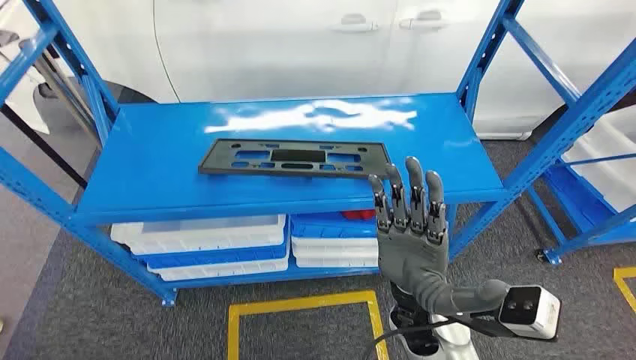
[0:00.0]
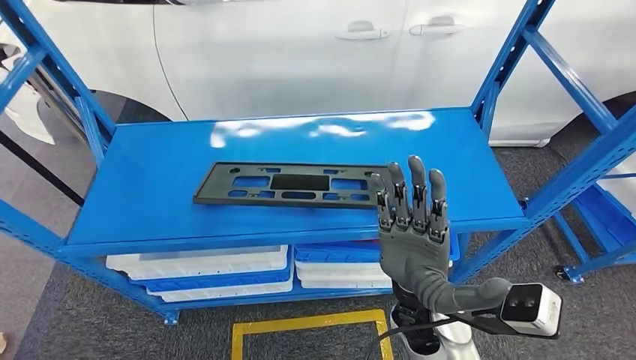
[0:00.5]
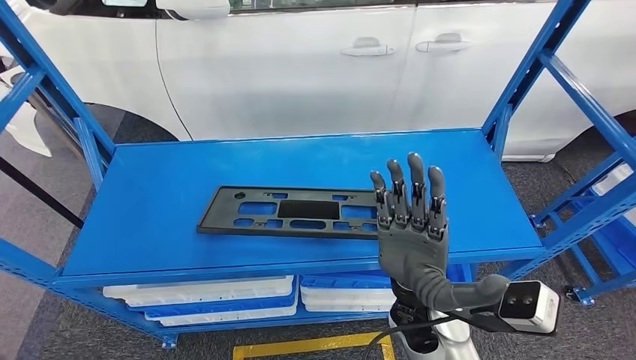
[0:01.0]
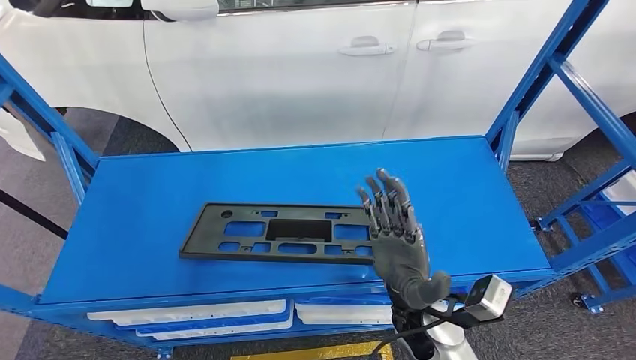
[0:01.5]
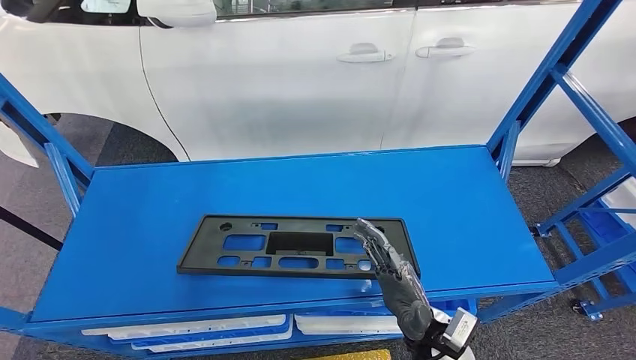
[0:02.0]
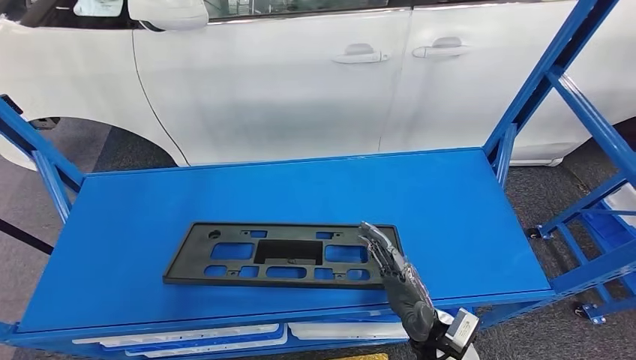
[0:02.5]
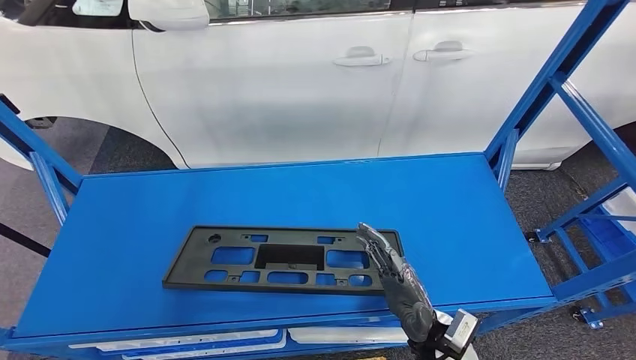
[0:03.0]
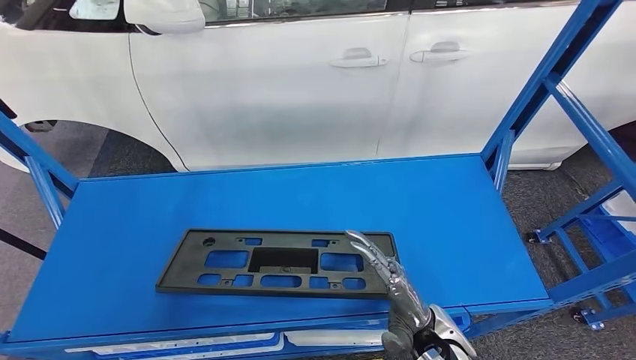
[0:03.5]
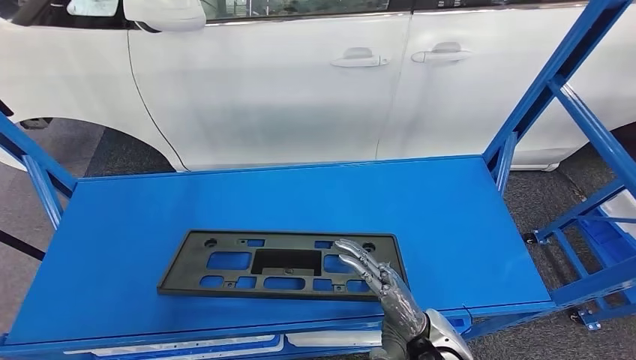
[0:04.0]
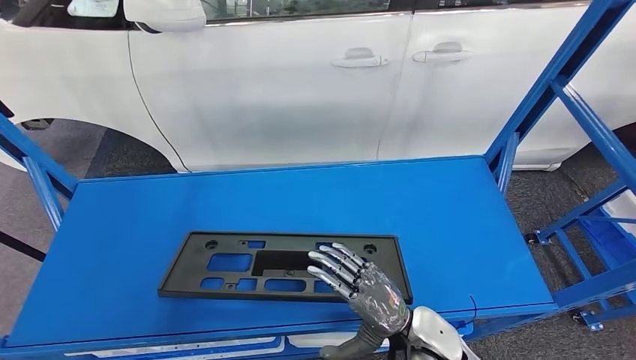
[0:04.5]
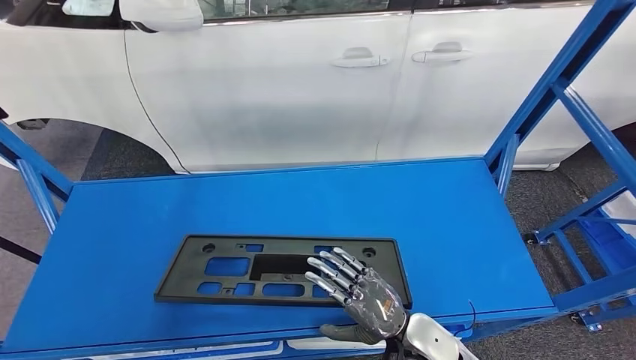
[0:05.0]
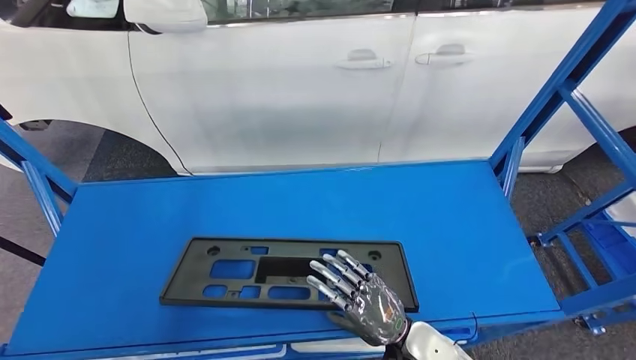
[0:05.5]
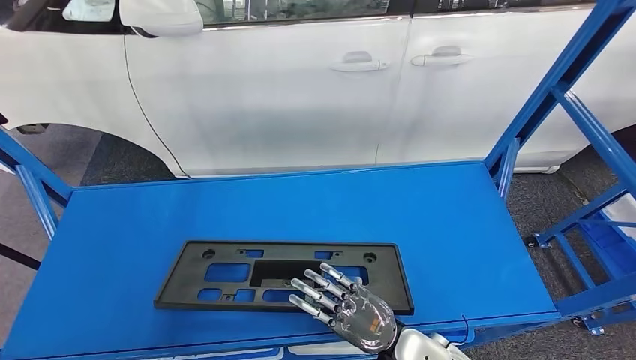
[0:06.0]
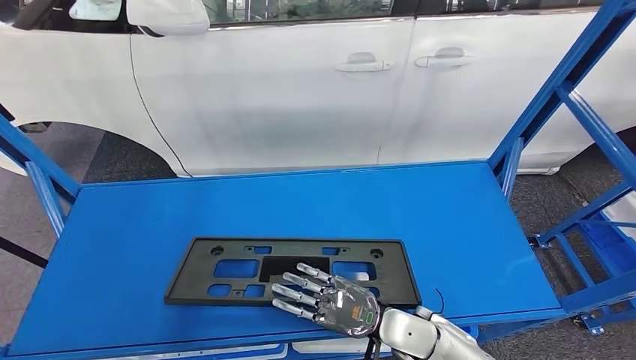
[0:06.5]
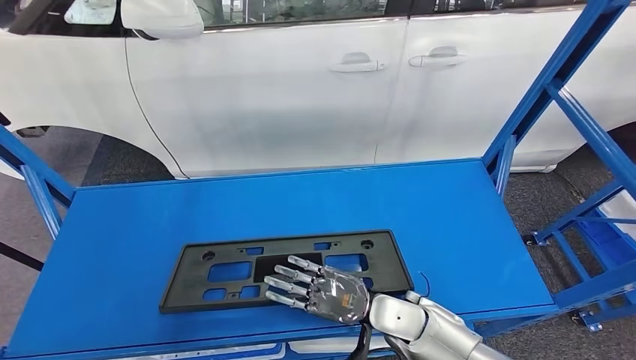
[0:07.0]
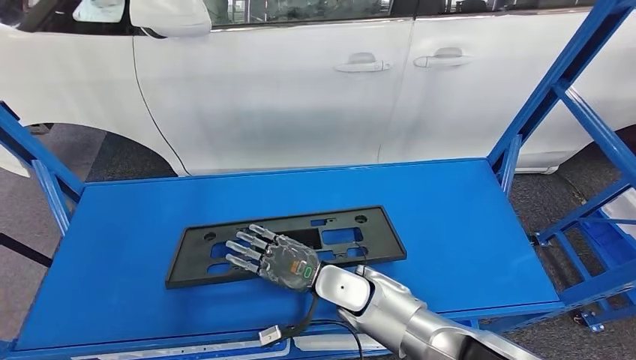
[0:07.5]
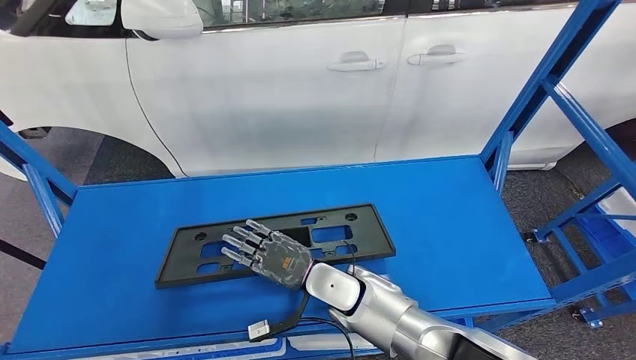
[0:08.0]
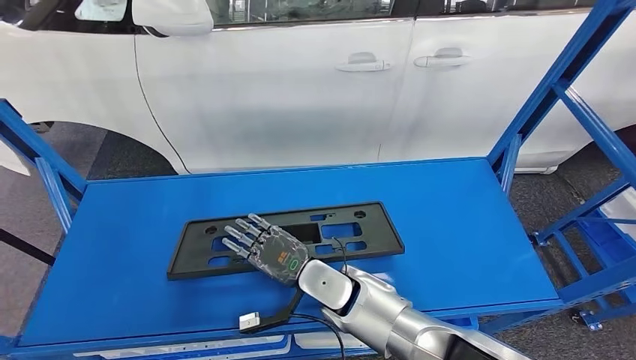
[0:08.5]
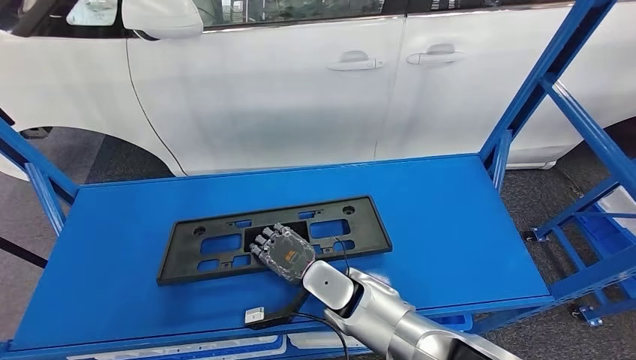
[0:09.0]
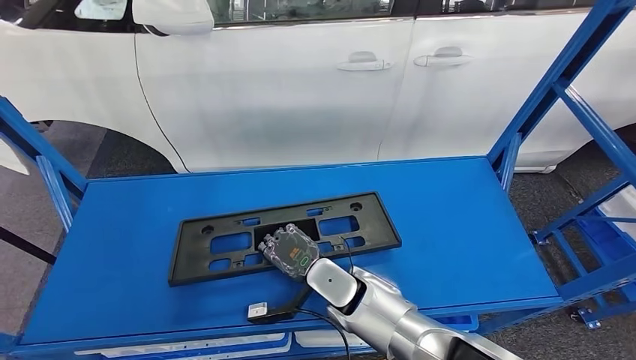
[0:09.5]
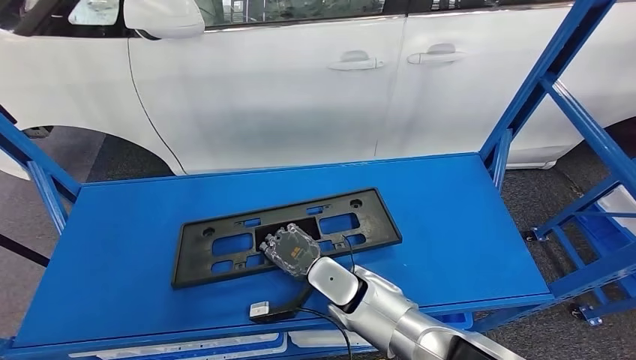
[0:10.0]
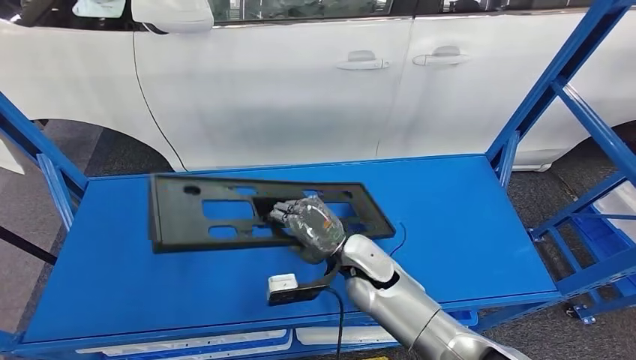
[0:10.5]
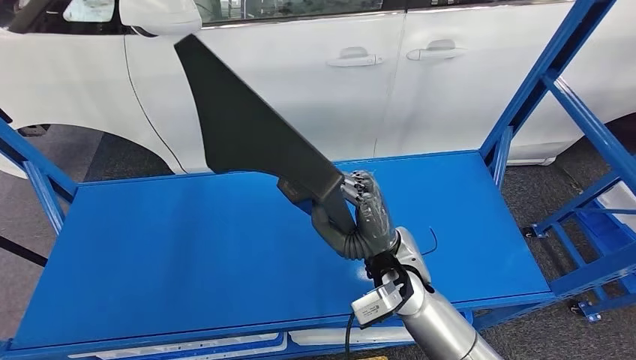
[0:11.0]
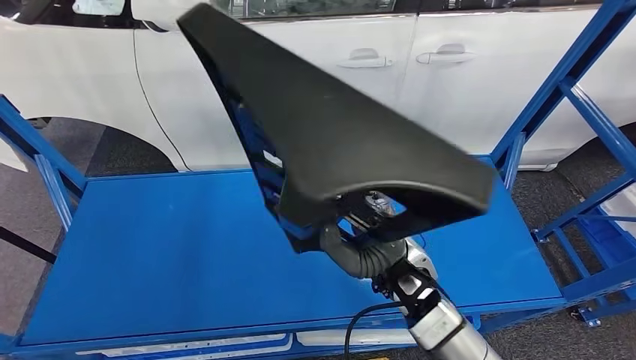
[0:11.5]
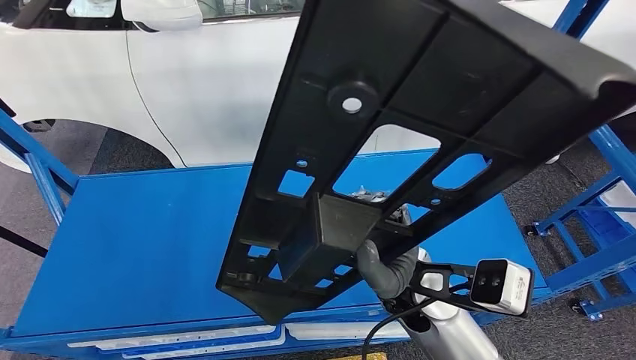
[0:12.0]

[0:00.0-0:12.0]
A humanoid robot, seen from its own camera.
0:08.0 to 0:10.0: There are only small adjustments of the hands.

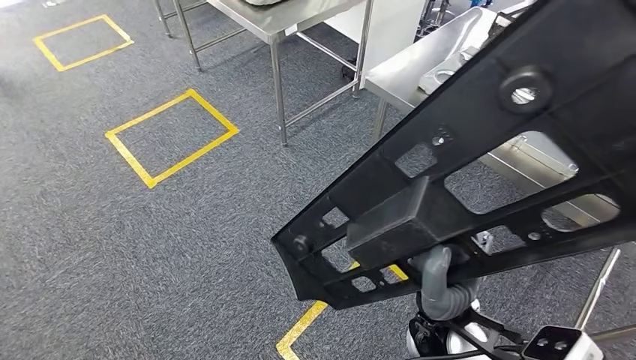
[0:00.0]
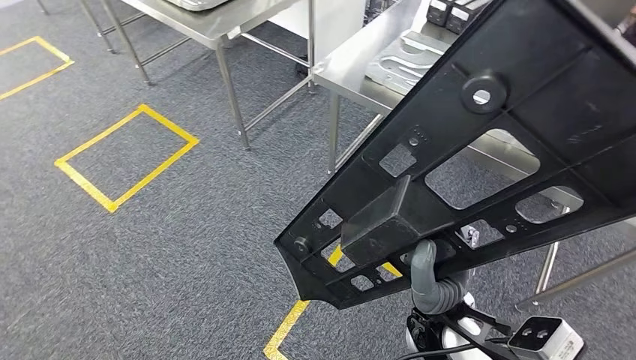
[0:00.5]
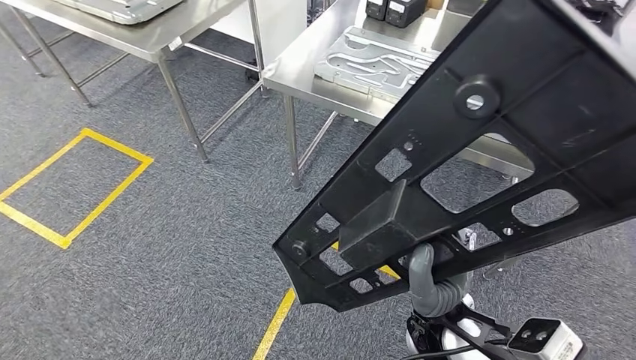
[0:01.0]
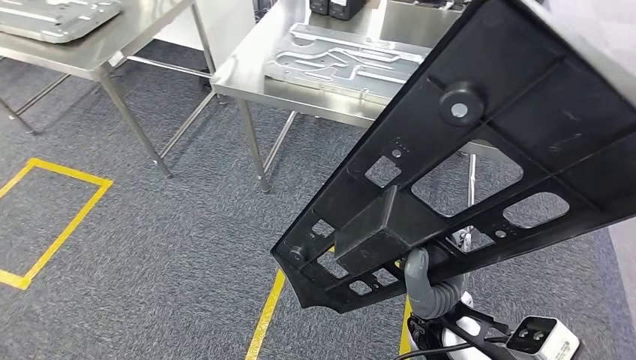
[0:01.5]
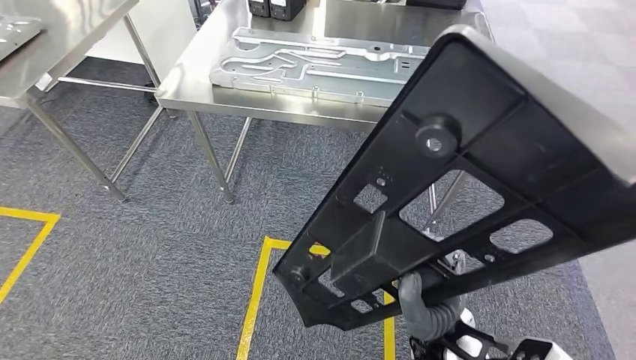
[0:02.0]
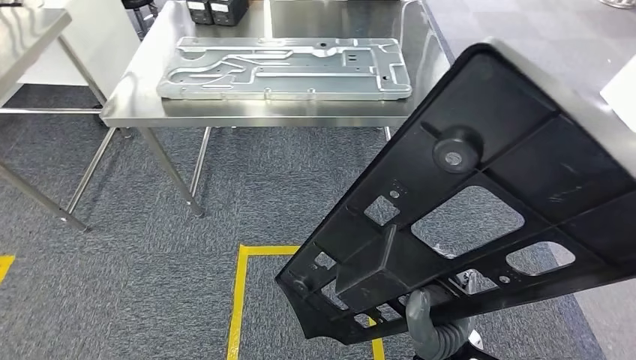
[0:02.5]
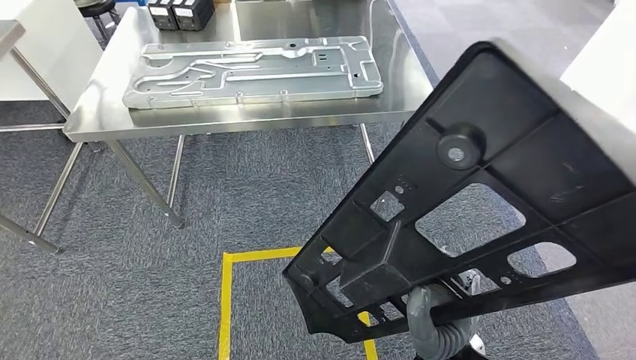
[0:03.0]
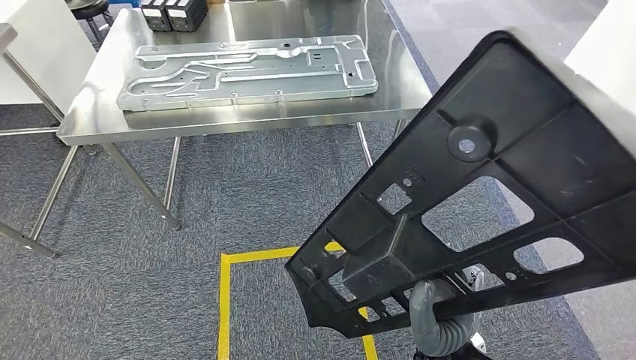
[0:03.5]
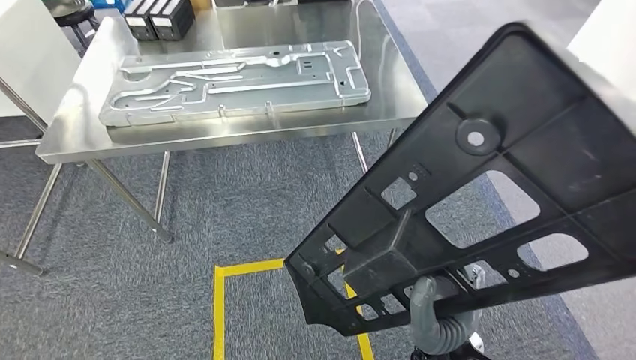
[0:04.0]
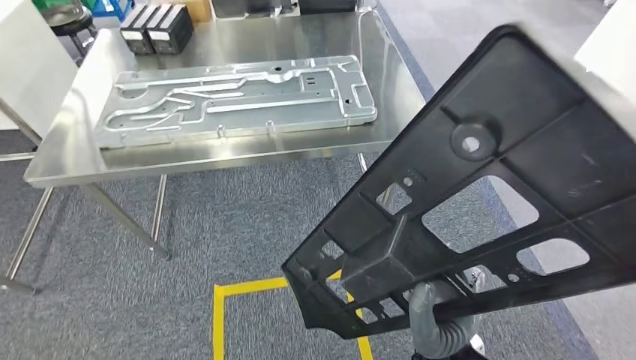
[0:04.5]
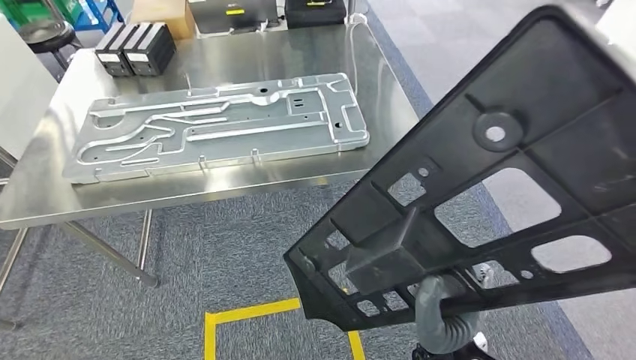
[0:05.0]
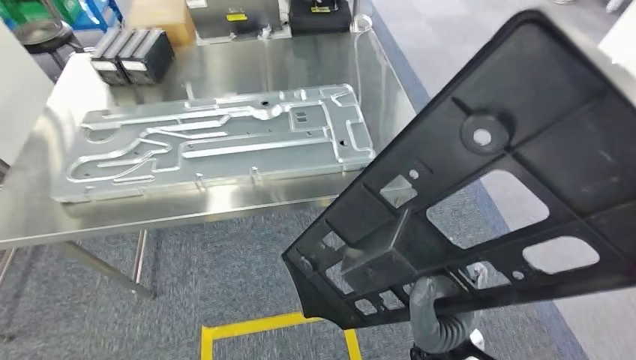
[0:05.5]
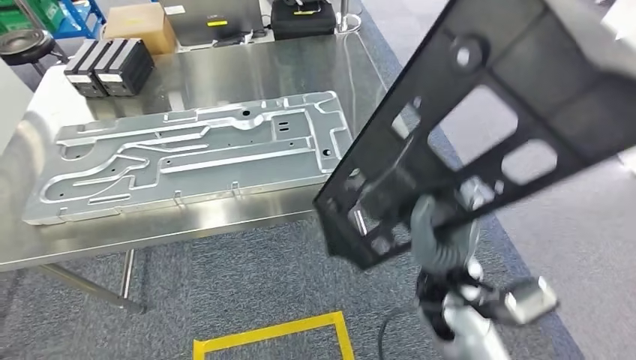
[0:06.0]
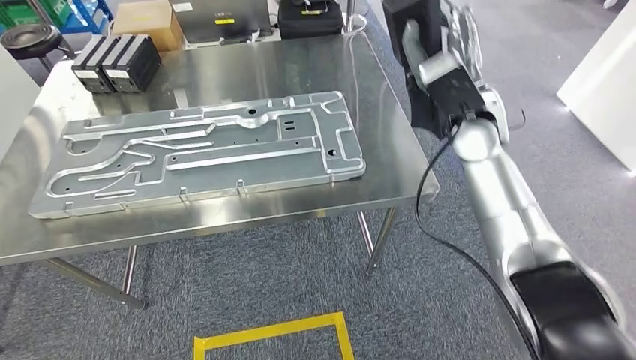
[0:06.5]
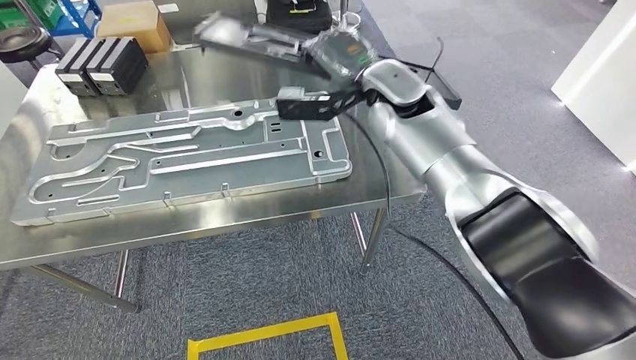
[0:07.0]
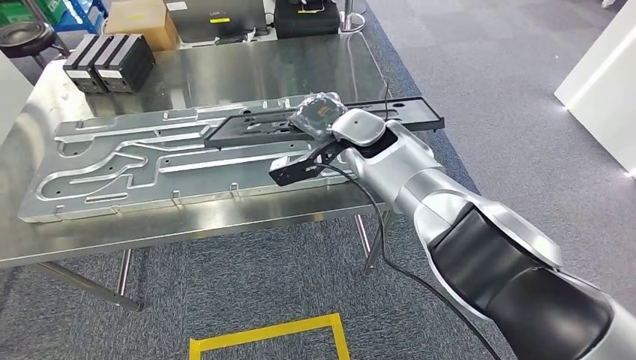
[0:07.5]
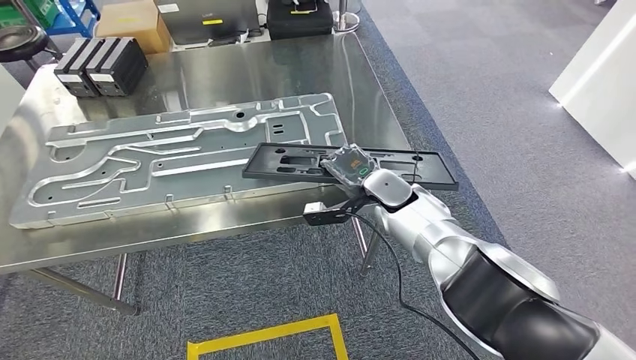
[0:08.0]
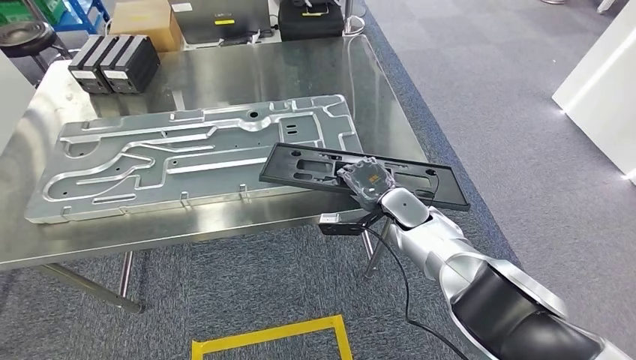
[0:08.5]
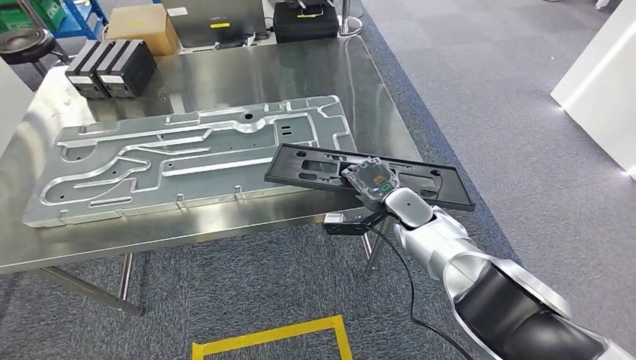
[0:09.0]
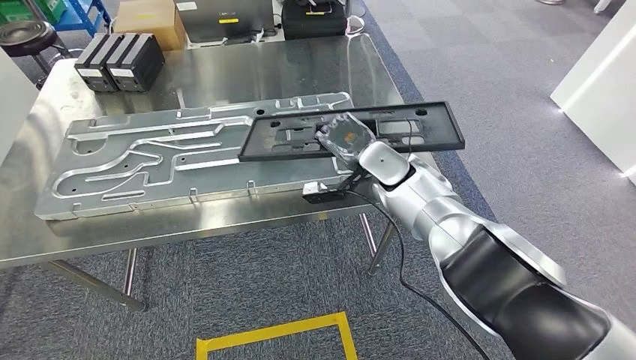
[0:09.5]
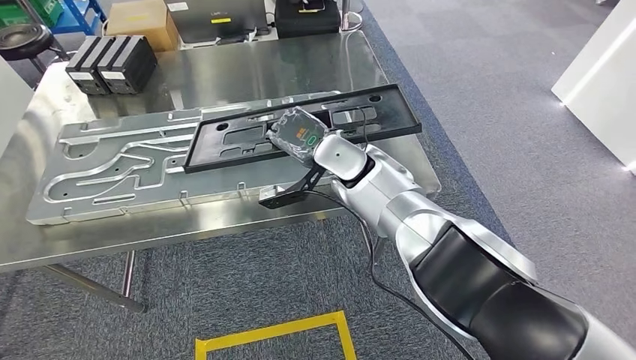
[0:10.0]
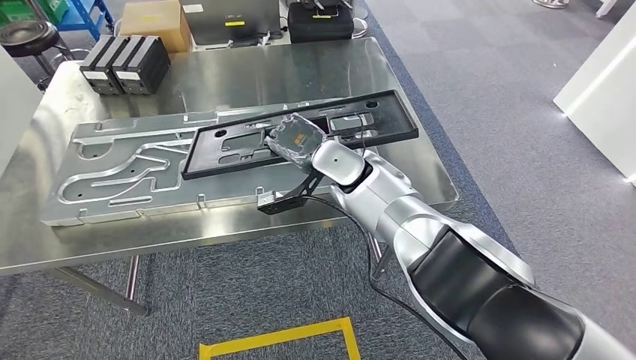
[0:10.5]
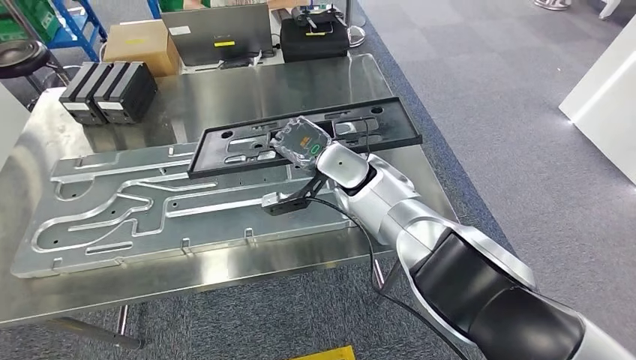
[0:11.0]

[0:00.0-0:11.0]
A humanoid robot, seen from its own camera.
Step, 0:00.0 to 0:07.5: Move the large material to the workbench.
